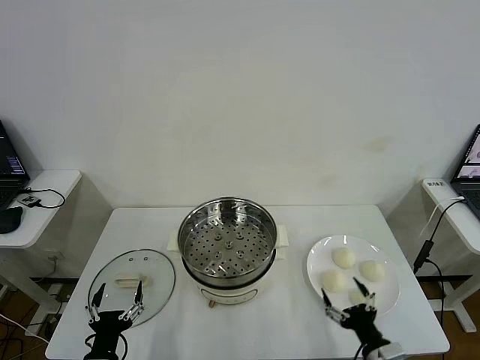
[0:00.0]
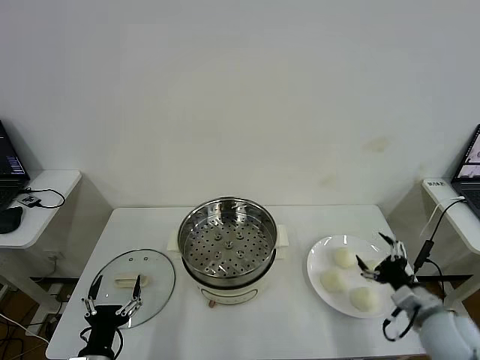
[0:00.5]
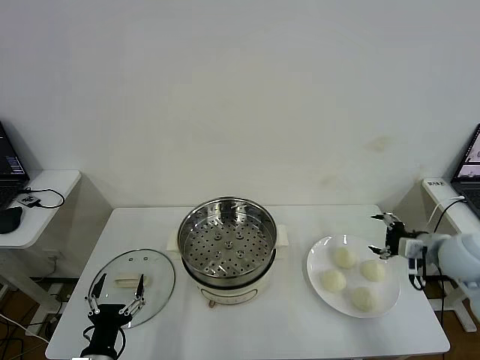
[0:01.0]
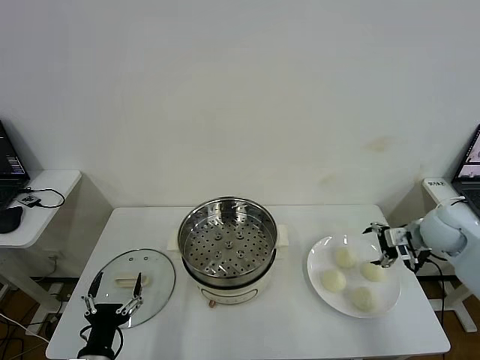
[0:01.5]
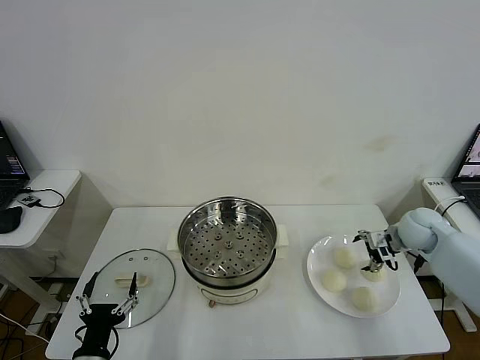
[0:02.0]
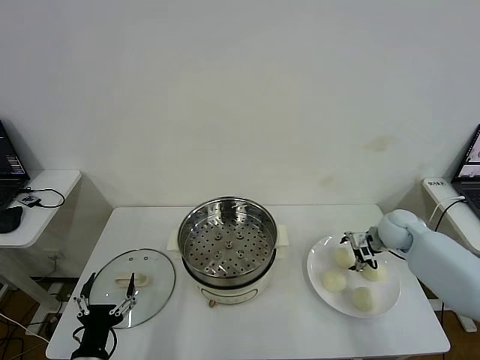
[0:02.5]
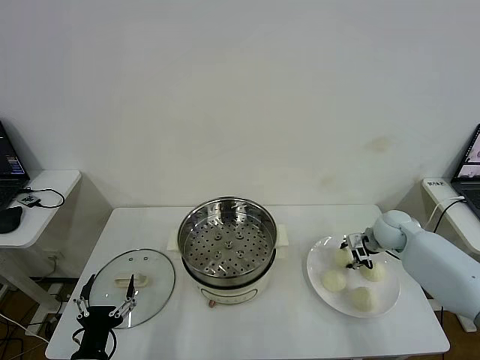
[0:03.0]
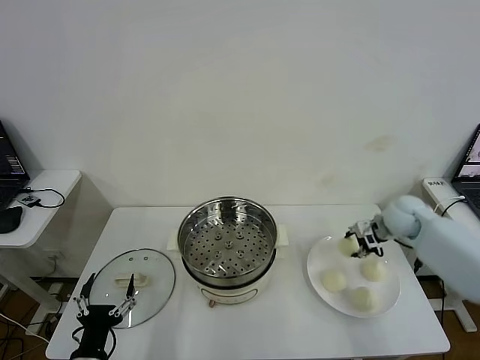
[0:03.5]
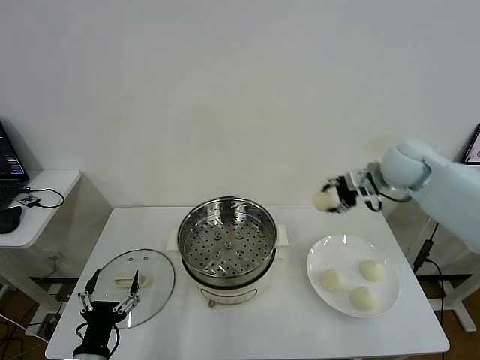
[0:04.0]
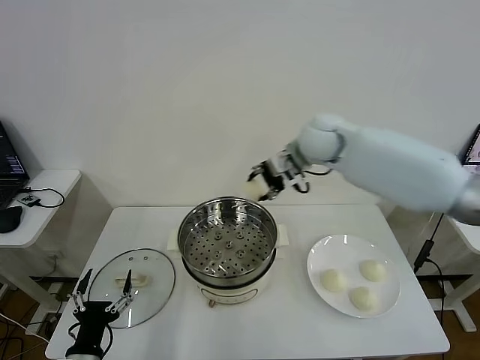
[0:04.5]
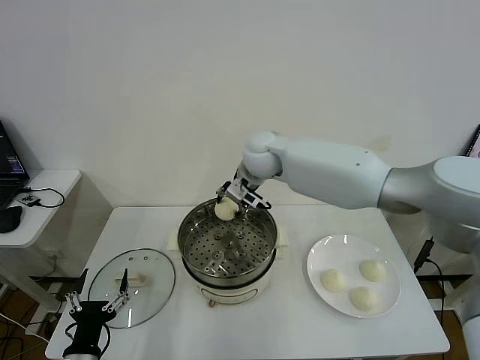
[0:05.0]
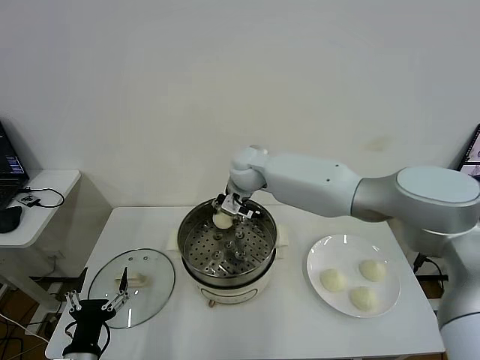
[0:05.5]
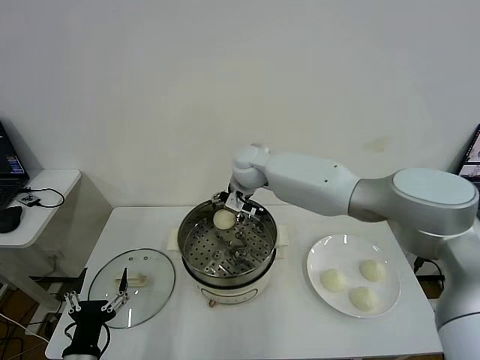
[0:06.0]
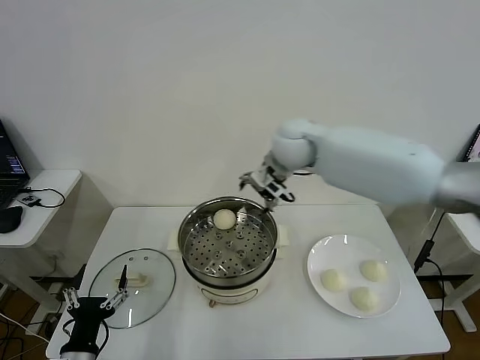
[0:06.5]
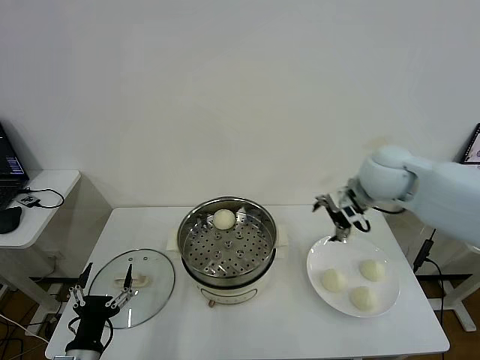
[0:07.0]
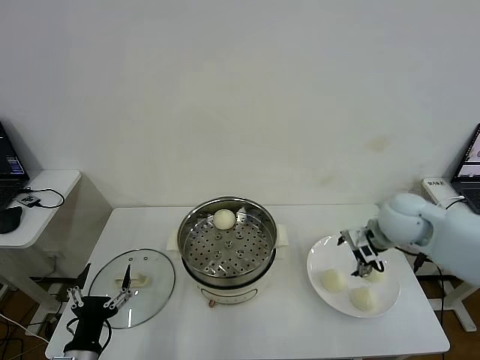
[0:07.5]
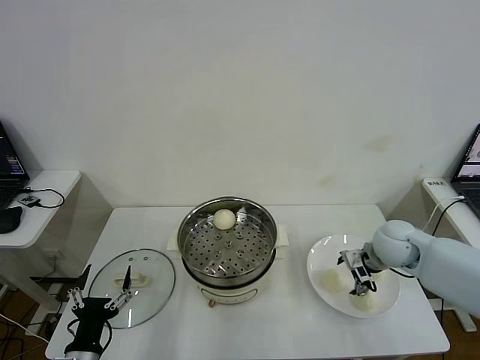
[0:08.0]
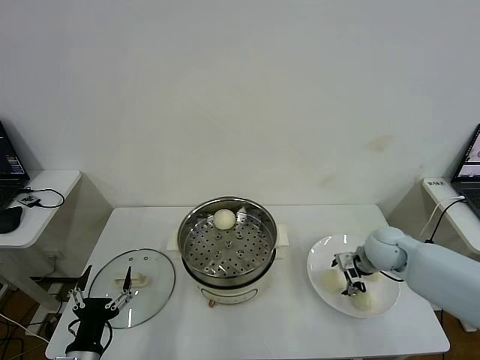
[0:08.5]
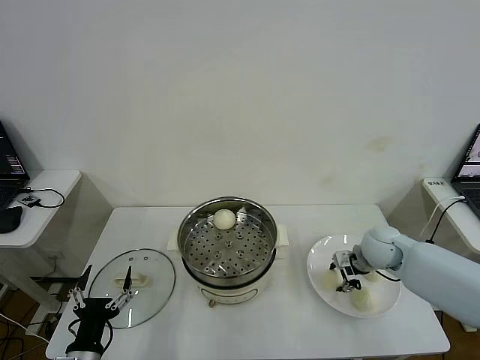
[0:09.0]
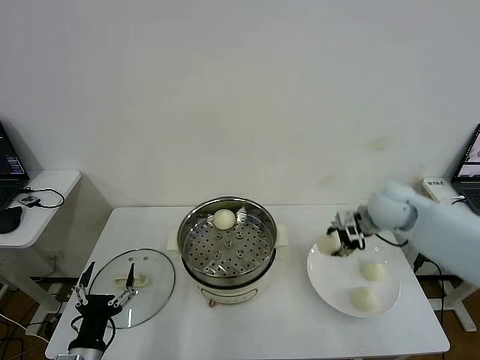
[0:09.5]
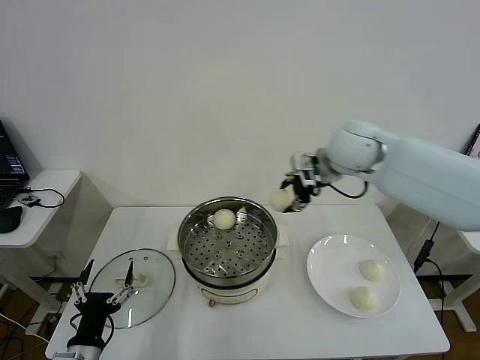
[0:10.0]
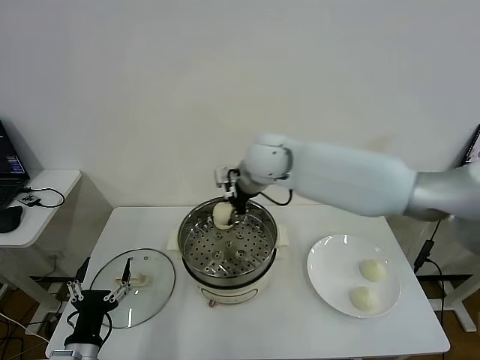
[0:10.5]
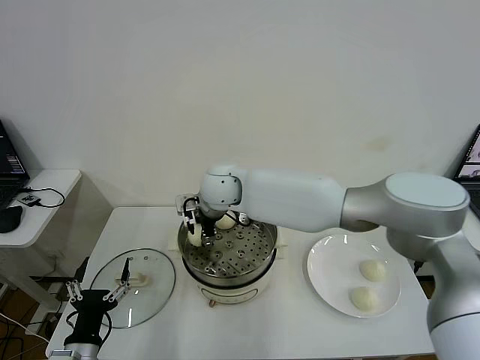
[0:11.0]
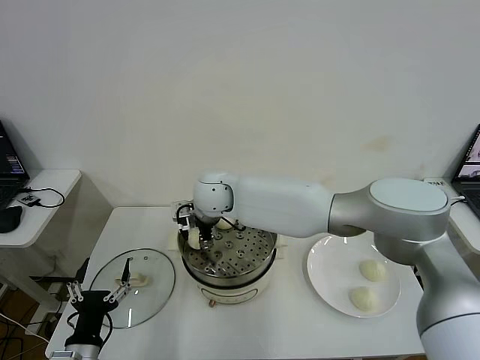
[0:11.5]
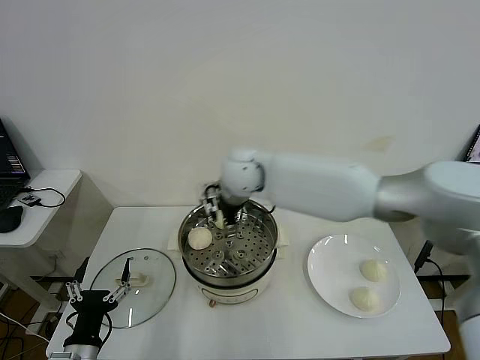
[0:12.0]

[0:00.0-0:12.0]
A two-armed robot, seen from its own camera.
Step, 0:00.0 to 0:03.0: Grasp the baozi in the plate with right gripper.
Step, 0:03.5 to 0:06.0: Place the baozi on the steamer with right gripper.
Step, 0:06.5 to 0:08.5: Grasp the baozi in the plate with right gripper.
Step, 0:09.0 to 0:11.5: Place the baozi on the steamer with right gripper.
0:02.0 to 0:04.0: The right gripper shifts about 25 cm upward and to the left, and closes up.
0:04.0 to 0:06.0: The right gripper goes approximately 25 cm to the left, and opens.
0:06.0 to 0:08.0: The right gripper is displaced to the right and backward by roughly 35 cm.
0:08.0 to 0:10.0: The right gripper travels upward and to the left by some 25 cm, and closes its fingers.
0:10.0 to 0:12.0: The right gripper travels to the left by about 15 cm, and opens.

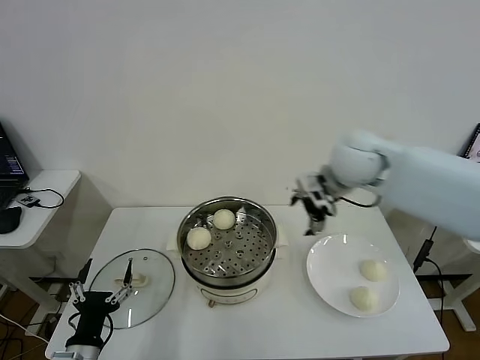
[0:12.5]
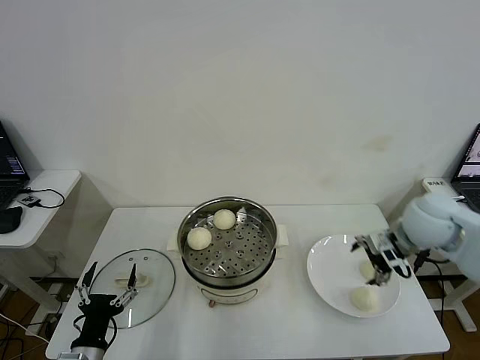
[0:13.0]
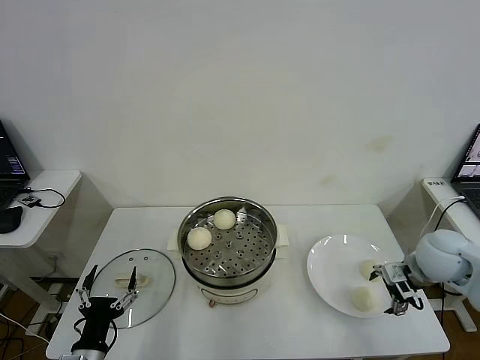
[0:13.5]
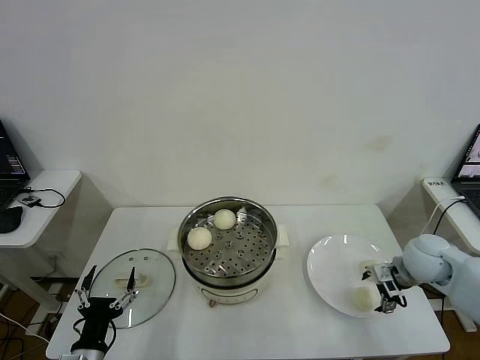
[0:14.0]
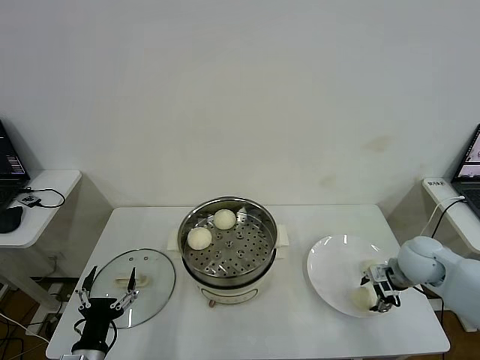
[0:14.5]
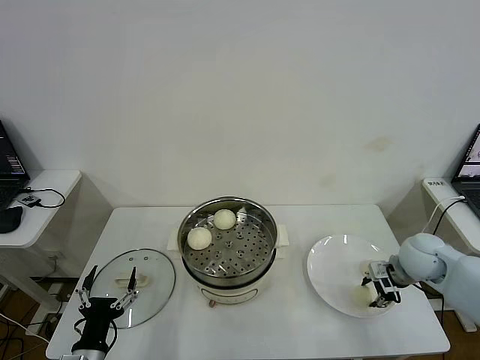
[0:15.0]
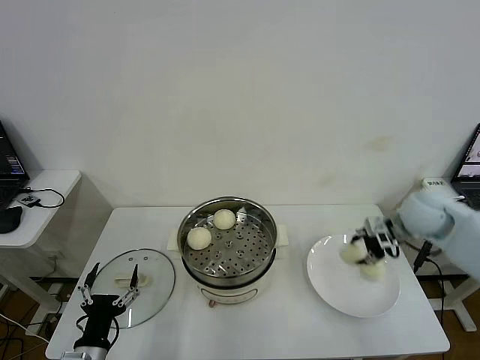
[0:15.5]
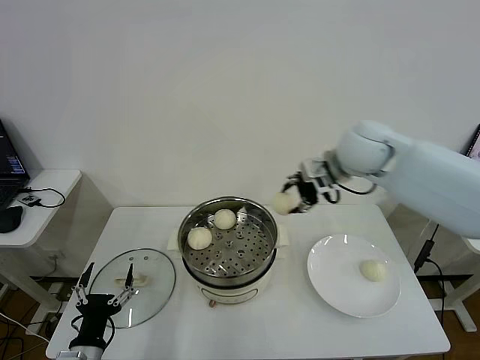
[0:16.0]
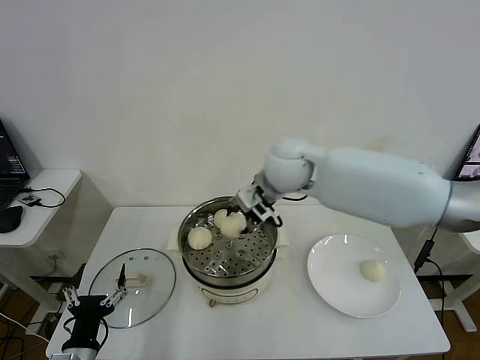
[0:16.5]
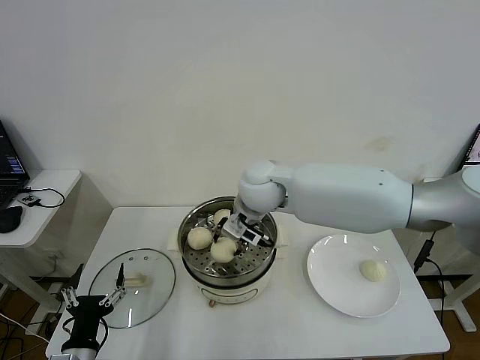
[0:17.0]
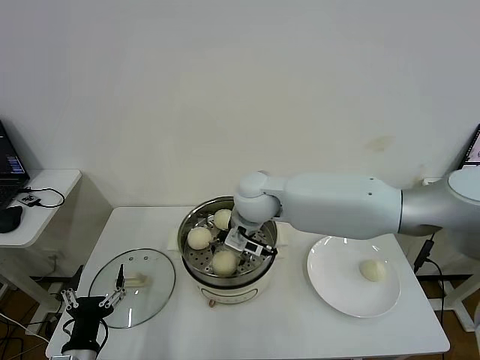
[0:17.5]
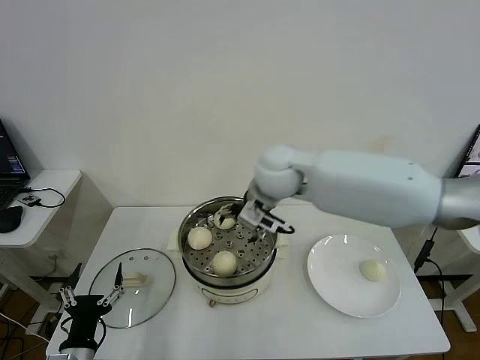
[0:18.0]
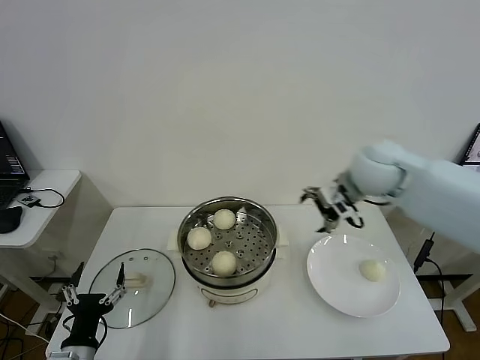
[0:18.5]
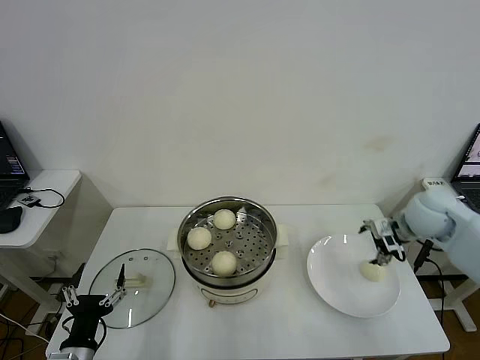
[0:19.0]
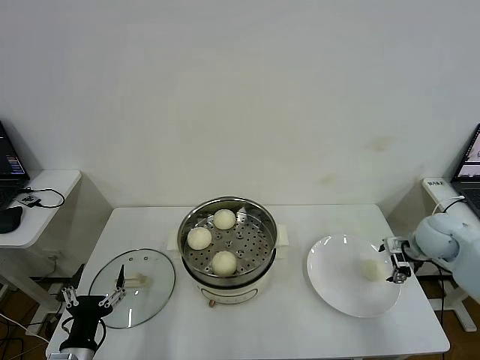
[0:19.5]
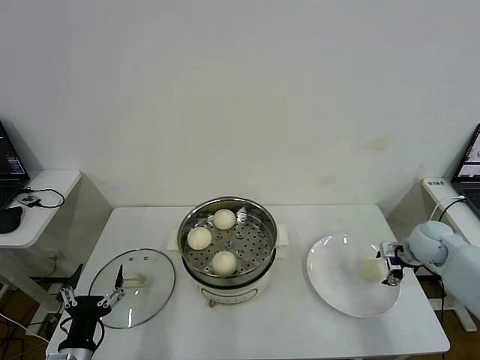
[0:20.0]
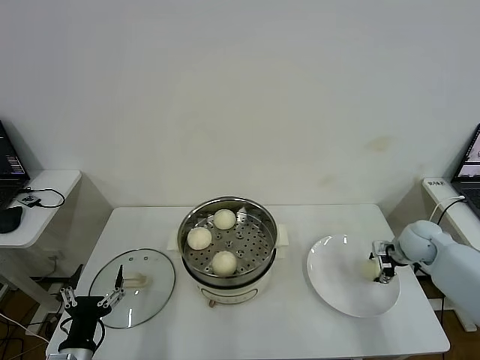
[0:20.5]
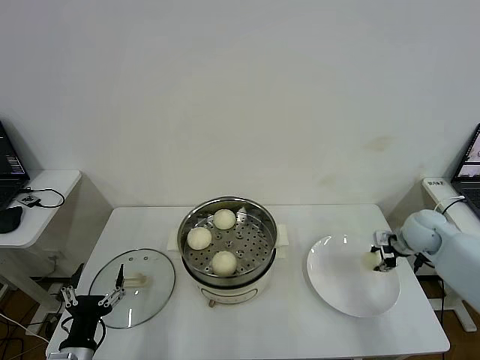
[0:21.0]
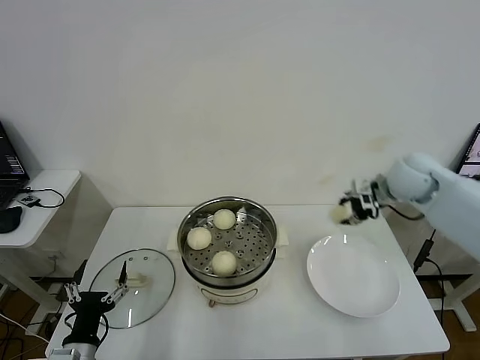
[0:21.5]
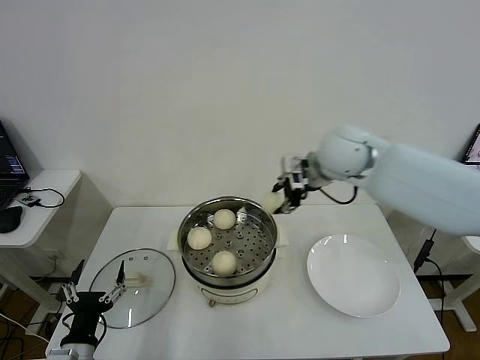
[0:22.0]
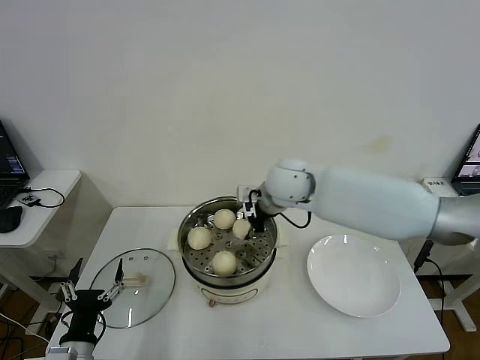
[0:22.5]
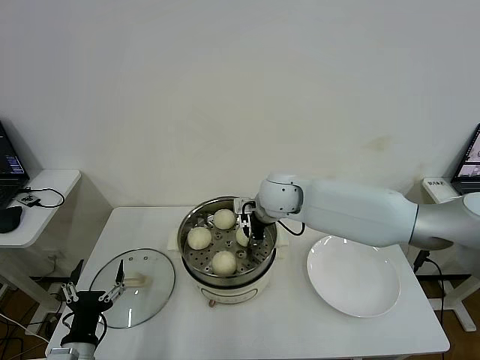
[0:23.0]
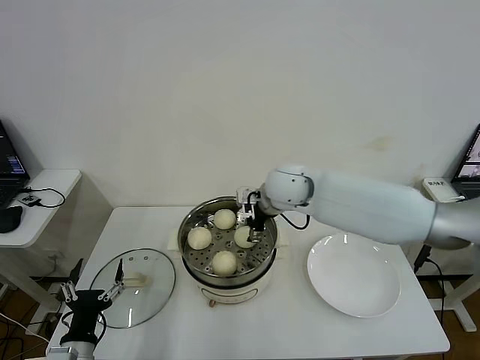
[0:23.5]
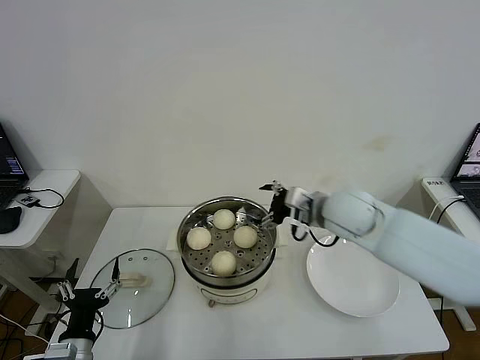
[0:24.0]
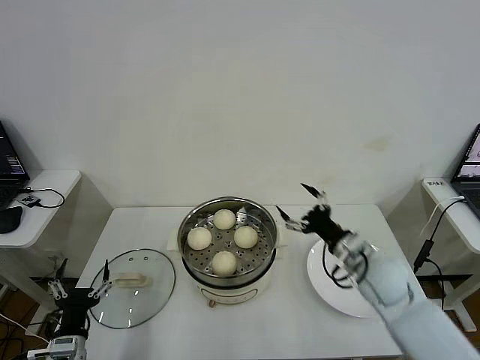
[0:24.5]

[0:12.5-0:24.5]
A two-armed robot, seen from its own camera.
Step, 0:12.5 to 0:14.5: Grasp the baozi in the plate with right gripper.
Step, 0:15.0 to 0:17.5: Place the baozi on the steamer with right gripper.
Step, 0:18.0 to 0:20.5: Grasp the baozi in the plate with right gripper.
Step, 0:21.0 to 0:23.5: Place the baozi on the steamer with right gripper.
0:12.5 to 0:14.5: The right gripper goes roughly 25 cm downward and to the right, and closes up.
0:14.5 to 0:16.5: The right gripper heads to the left and upward, covering roughly 35 cm, and closes its fingers.
0:16.5 to 0:18.5: The right gripper travels to the right by roughly 20 cm, and opens its fingers.
0:18.5 to 0:20.5: The right gripper heads downward and to the right, covering approximately 30 cm, and closes its fingers.
0:20.5 to 0:22.5: The right gripper moves to the left and upward, about 40 cm, and closes its fingers.
0:22.5 to 0:24.5: The right gripper goes about 25 cm to the right, backward and downward, and opens its fingers.

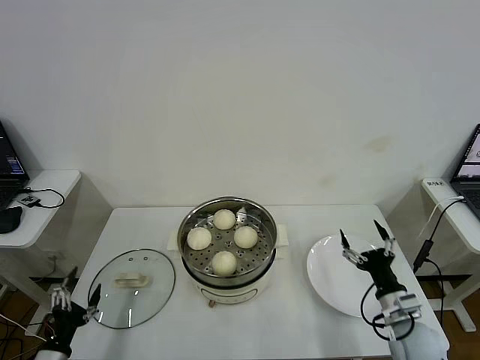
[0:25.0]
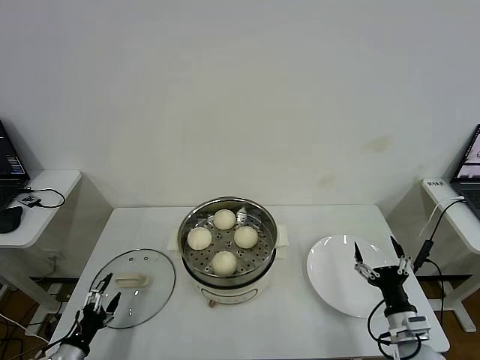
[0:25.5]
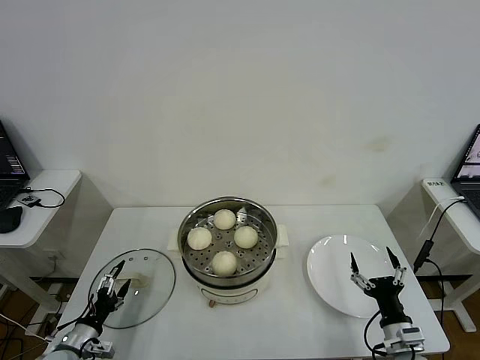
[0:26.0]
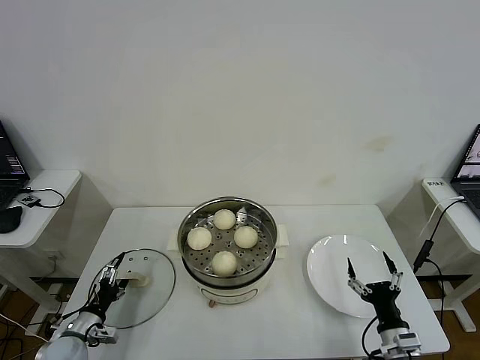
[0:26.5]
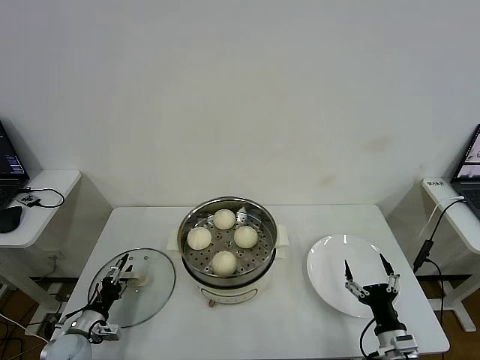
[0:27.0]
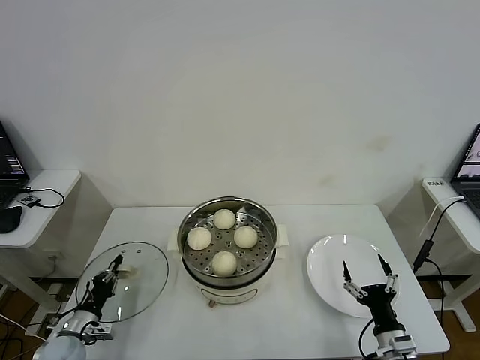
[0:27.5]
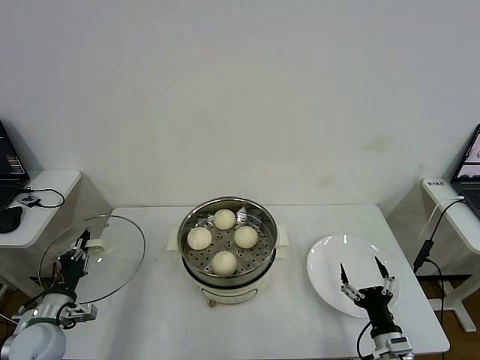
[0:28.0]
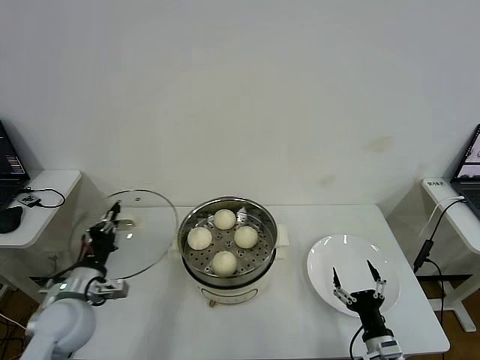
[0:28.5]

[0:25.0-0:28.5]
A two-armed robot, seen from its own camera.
Step, 0:25.0 to 0:27.5: Grasp the pot lid with left gripper.
0:25.0 to 0:27.0: The left gripper shifts approximately 15 cm forward and downward. The right gripper shifts about 10 cm backward and downward.
0:27.0 to 0:28.5: The left gripper shifts roughly 20 cm upward, and closes.
